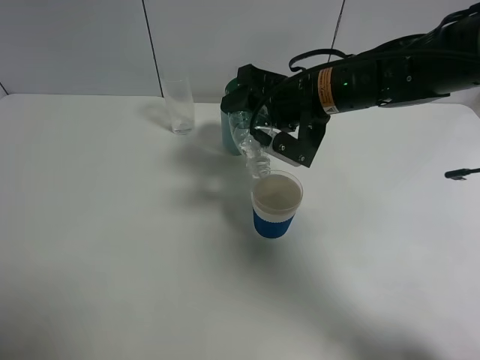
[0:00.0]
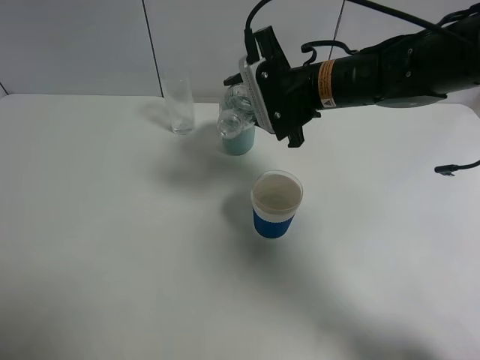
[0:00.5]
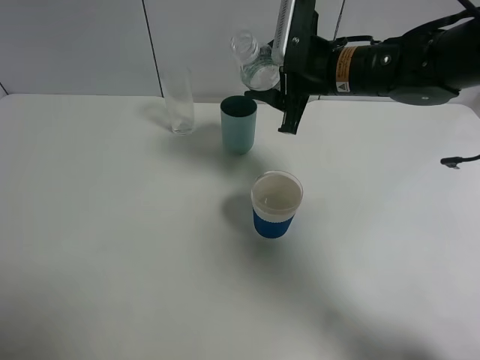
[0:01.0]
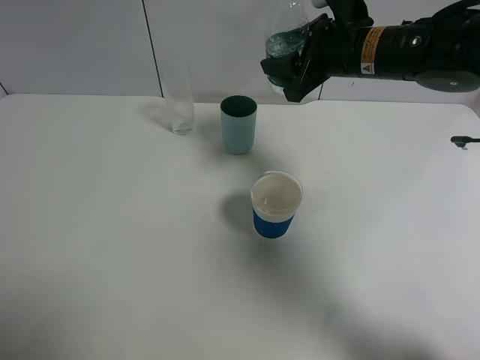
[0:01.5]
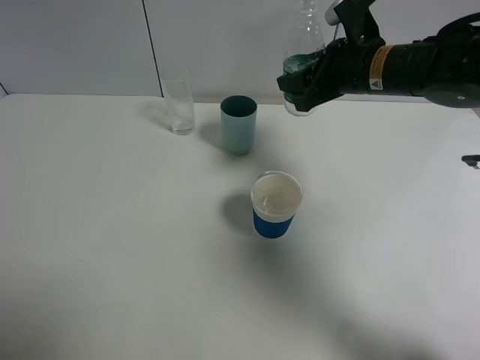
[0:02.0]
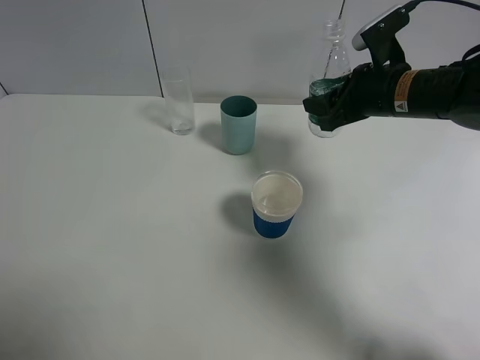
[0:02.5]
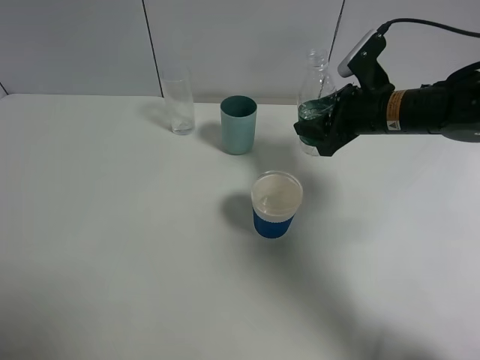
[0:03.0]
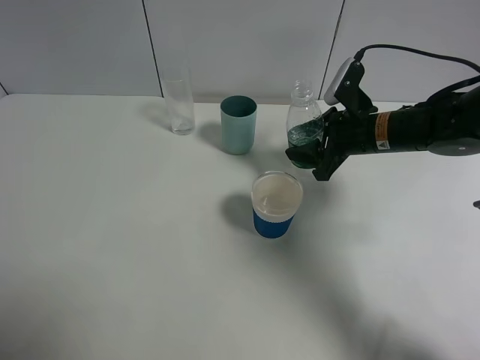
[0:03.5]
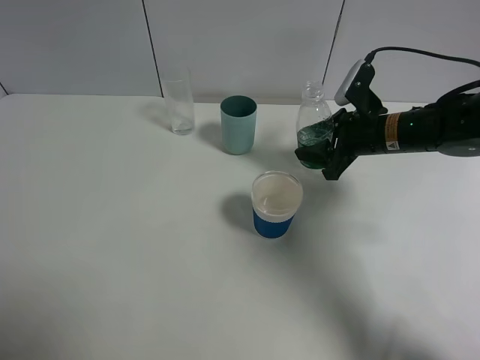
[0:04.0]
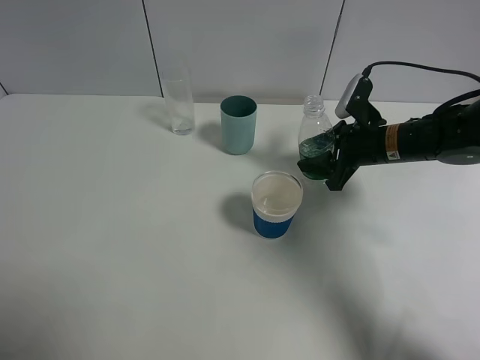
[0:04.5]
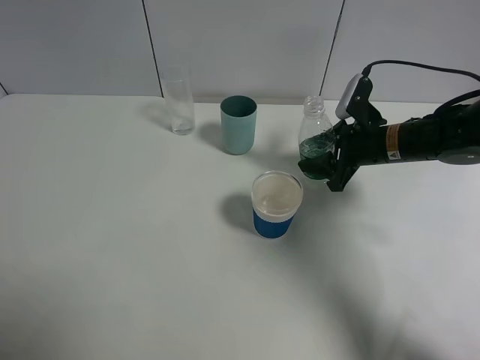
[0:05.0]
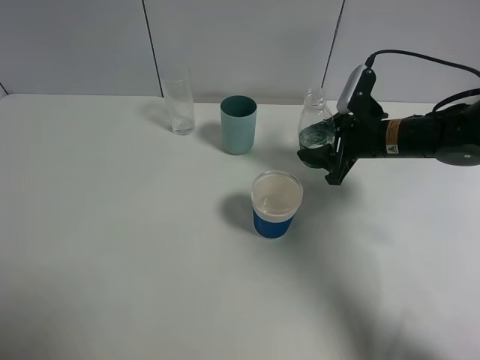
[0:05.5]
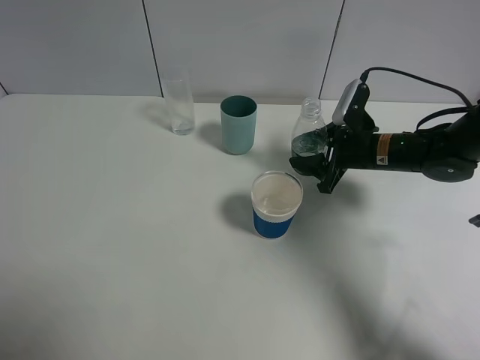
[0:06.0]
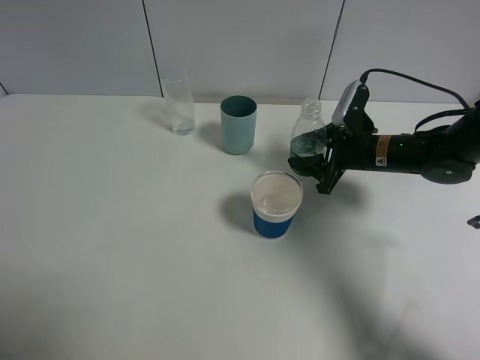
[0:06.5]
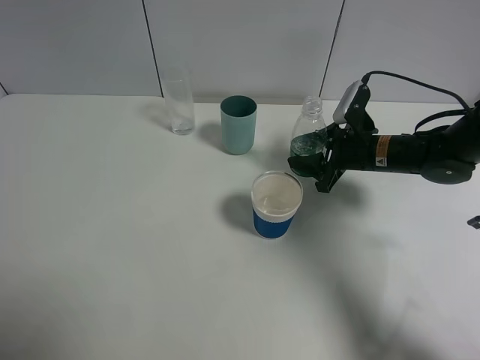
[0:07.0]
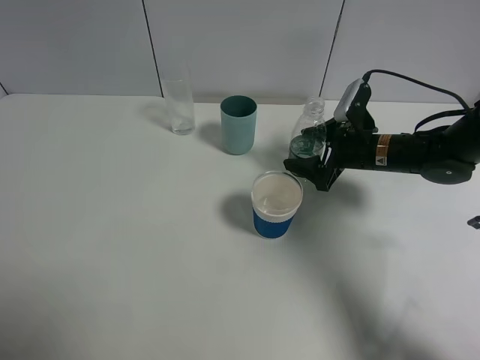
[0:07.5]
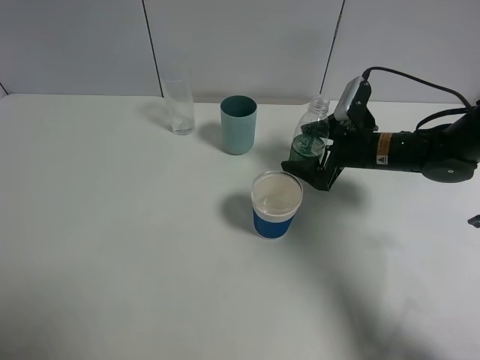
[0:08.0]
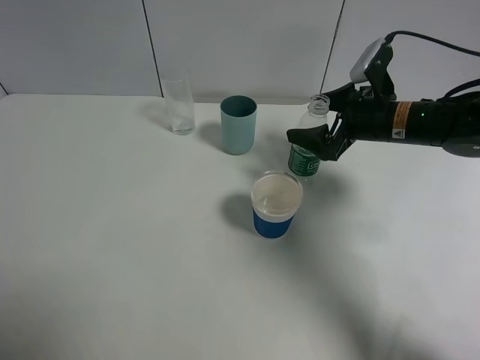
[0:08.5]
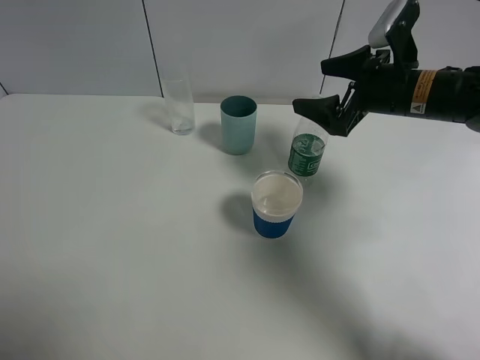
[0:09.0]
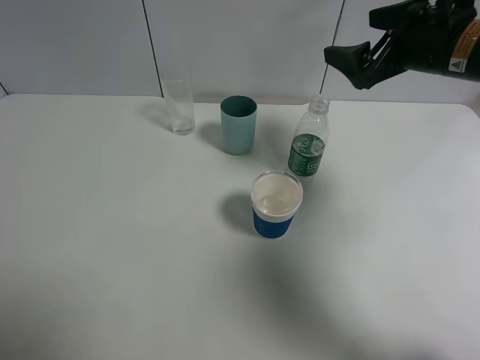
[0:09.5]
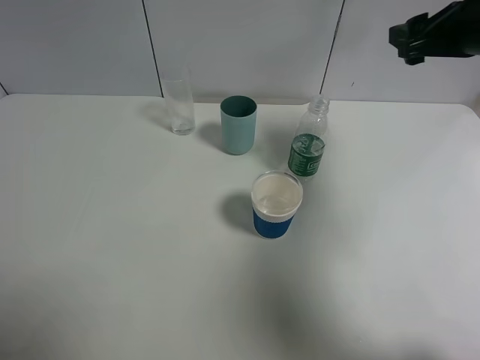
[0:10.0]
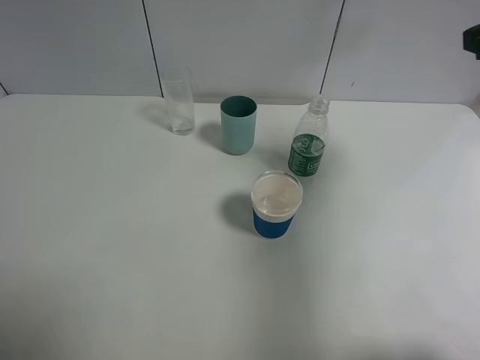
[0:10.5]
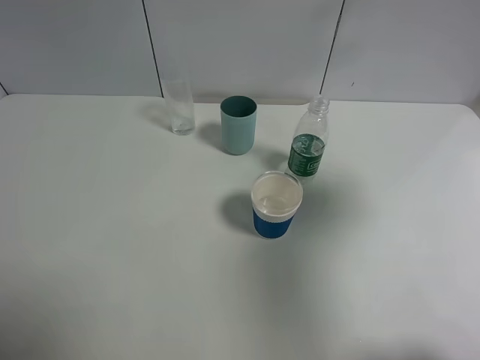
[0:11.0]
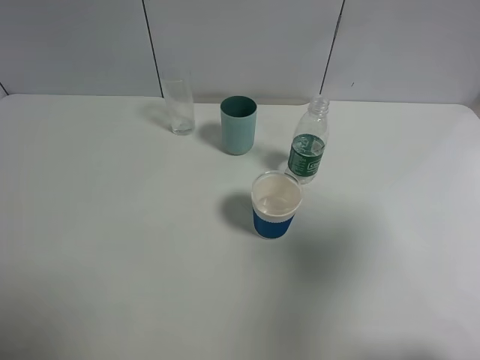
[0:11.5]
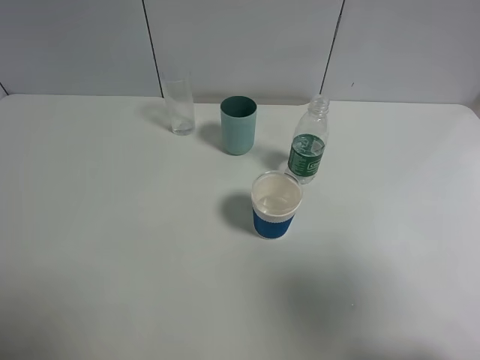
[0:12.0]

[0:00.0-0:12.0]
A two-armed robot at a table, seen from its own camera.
Task of the whole recording: use a gripper to hold the bottle of the drink and pour it into a random cup.
Step, 0:01.0 to 0:08.5: Place the mineral water bottle on the table with the right gripper.
0:00.0 to 0:02.0: The right gripper heads to the right, covering about 5 cm.
0:02.0 to 0:04.0: The right gripper heads downward, covering about 10 cm.
0:04.0 to 0:06.0: The grippers move only a little.
0:06.0 to 0:08.0: The right gripper opens its fingers.
0:08.0 to 0:10.0: The right gripper shifts approximately 20 cm upward.
0:10.0 to 0:12.0: The right gripper moves backward, approximately 30 cm, and opens its fingers.

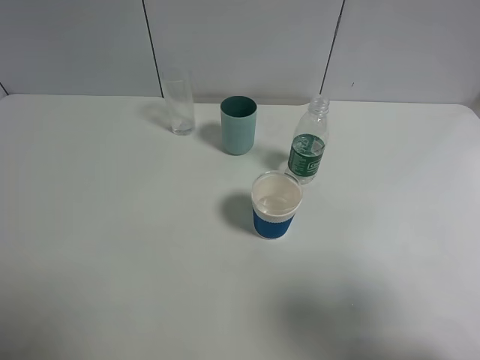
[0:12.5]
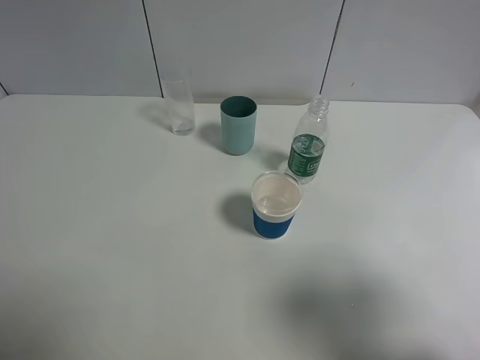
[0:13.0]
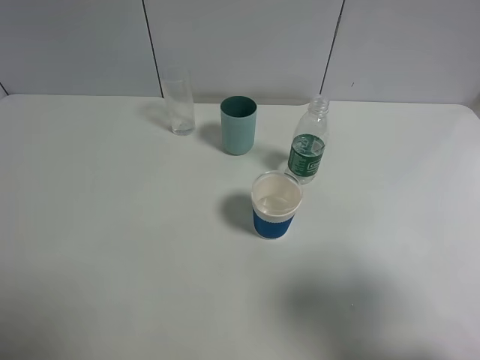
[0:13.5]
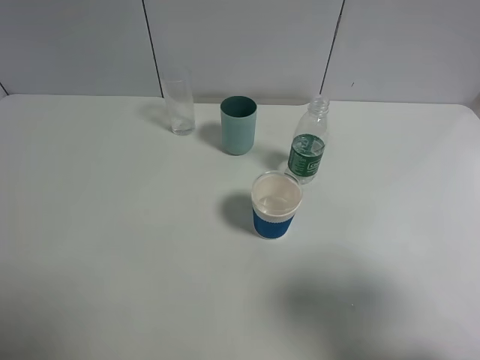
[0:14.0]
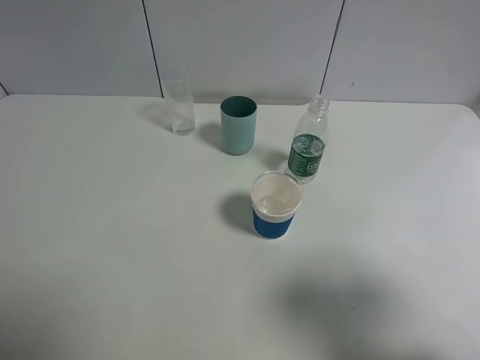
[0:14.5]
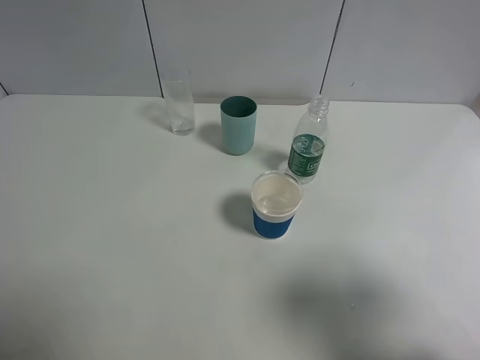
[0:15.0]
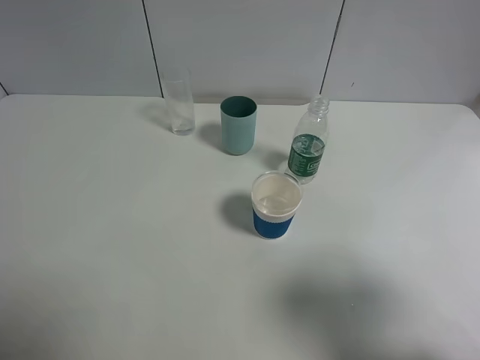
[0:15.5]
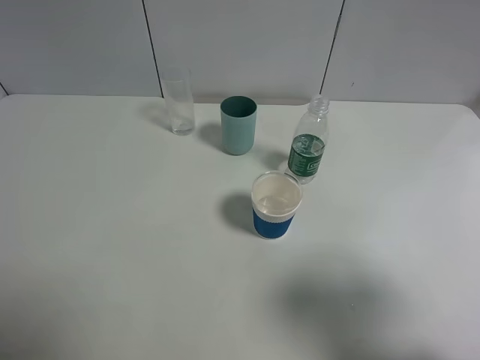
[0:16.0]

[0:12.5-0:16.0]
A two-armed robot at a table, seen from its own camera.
Task of the whole recording: use a gripper to hold the bottle of the drink and pour it into a random cup.
0:14.5 to 0:16.0: Neither gripper changes place.

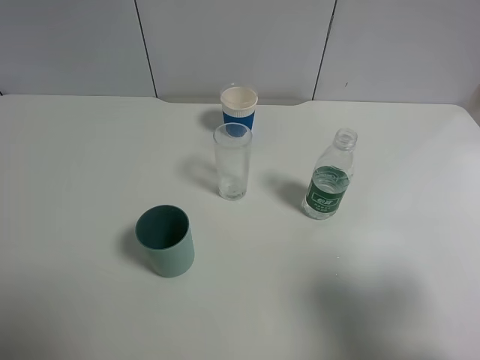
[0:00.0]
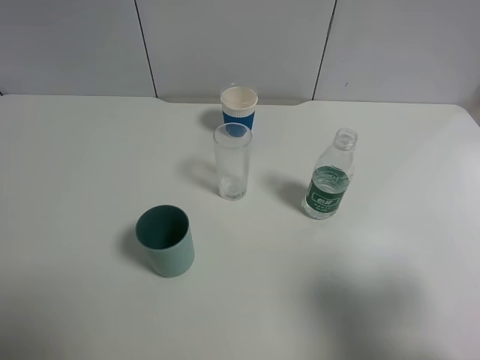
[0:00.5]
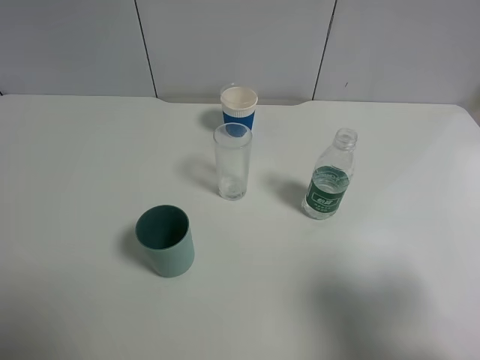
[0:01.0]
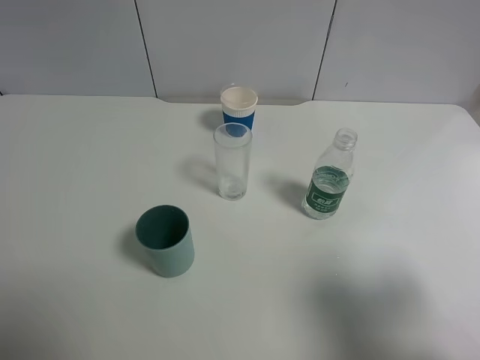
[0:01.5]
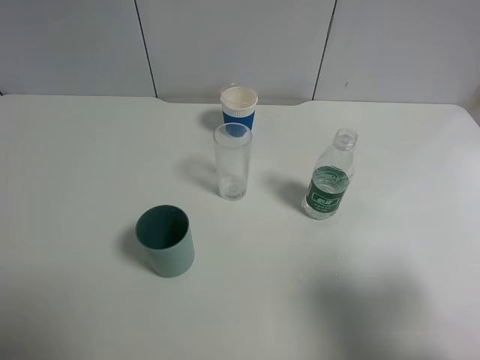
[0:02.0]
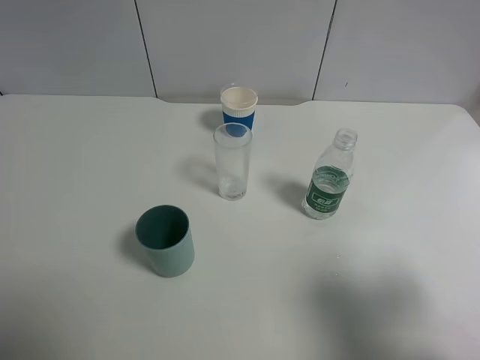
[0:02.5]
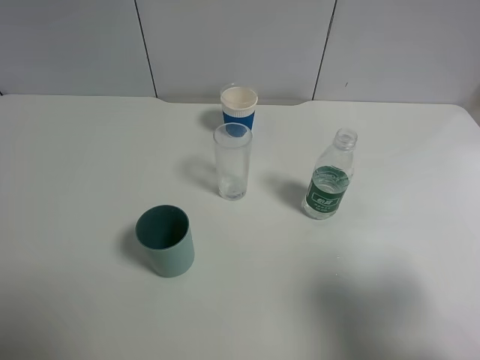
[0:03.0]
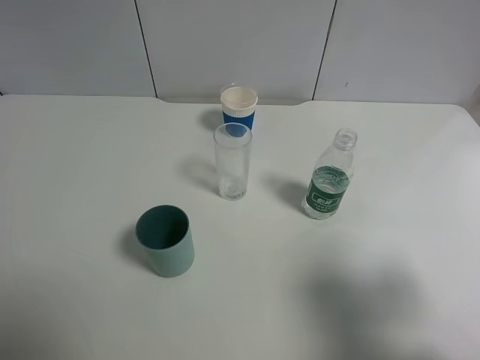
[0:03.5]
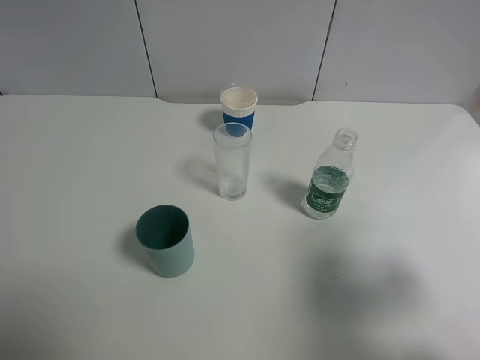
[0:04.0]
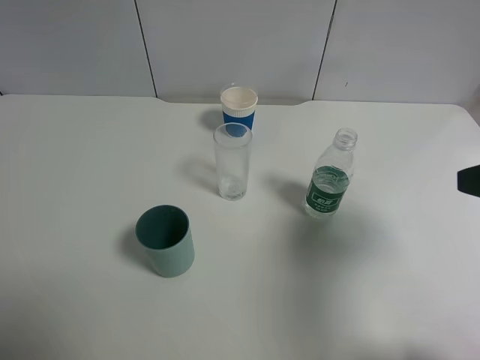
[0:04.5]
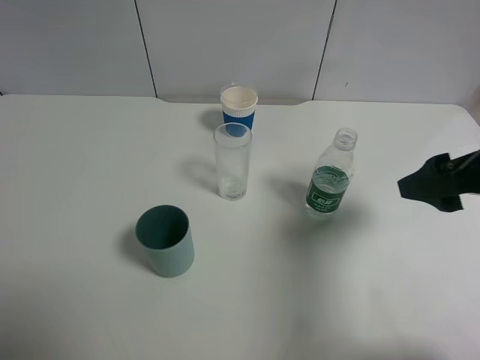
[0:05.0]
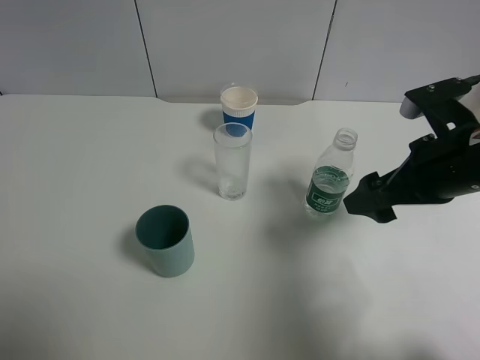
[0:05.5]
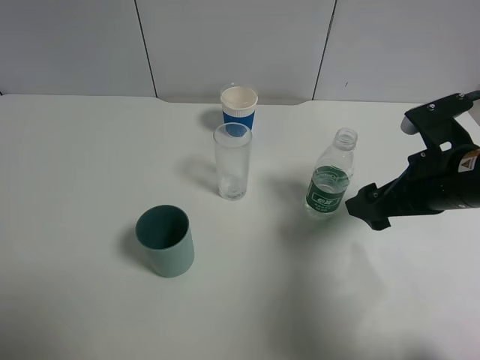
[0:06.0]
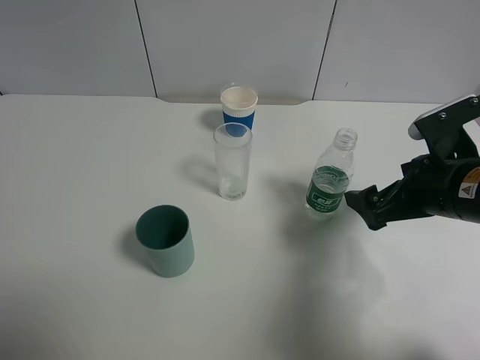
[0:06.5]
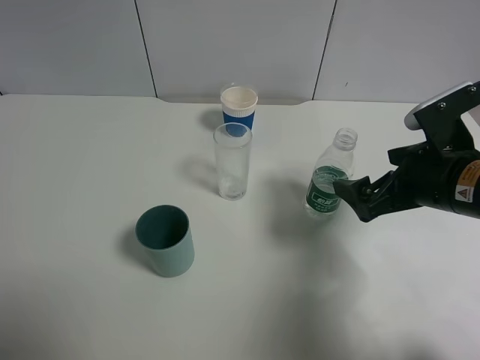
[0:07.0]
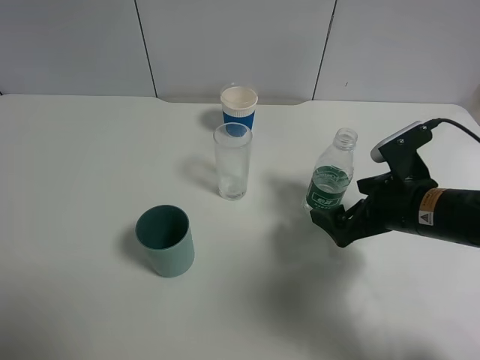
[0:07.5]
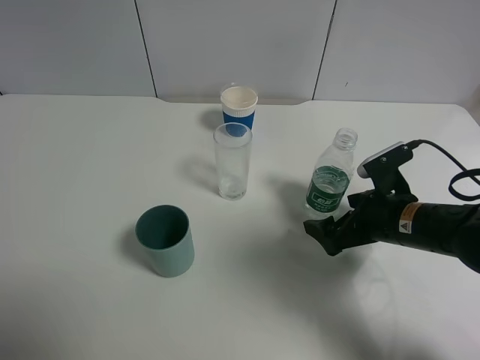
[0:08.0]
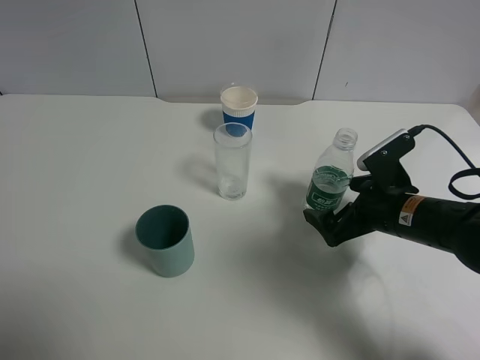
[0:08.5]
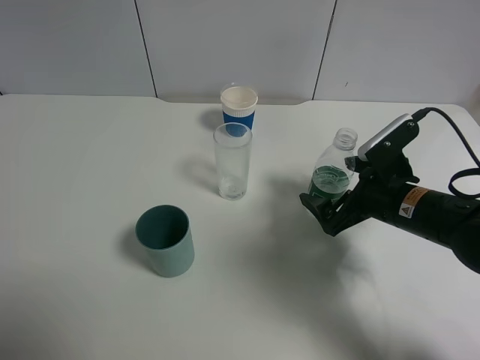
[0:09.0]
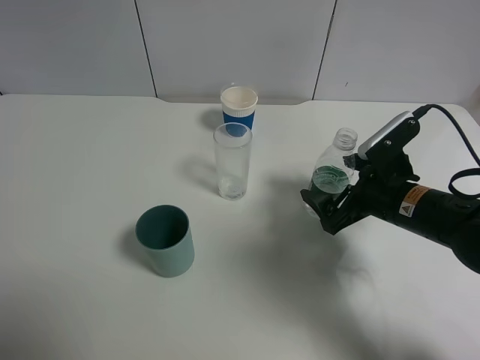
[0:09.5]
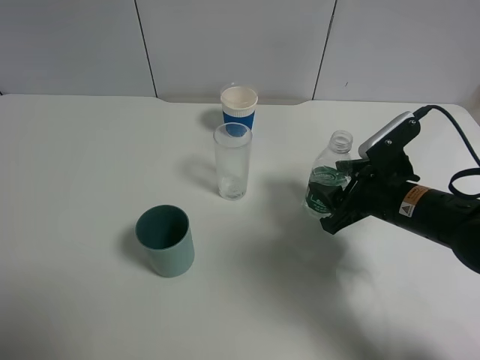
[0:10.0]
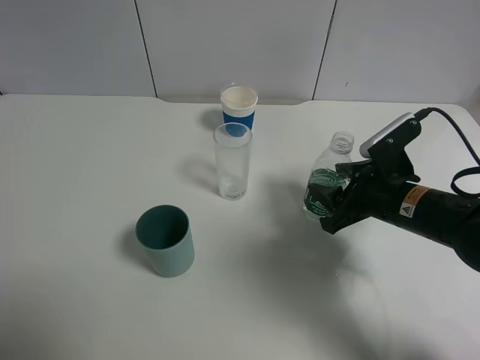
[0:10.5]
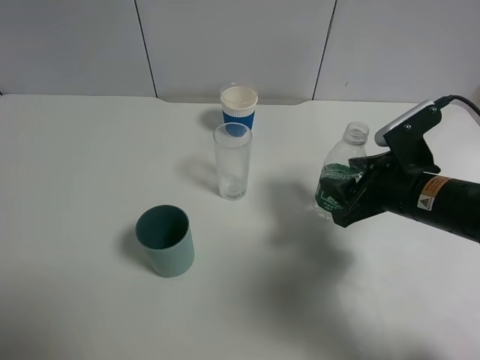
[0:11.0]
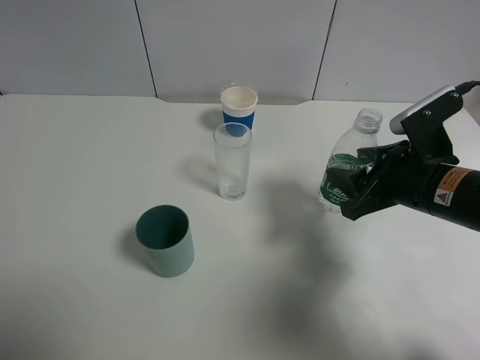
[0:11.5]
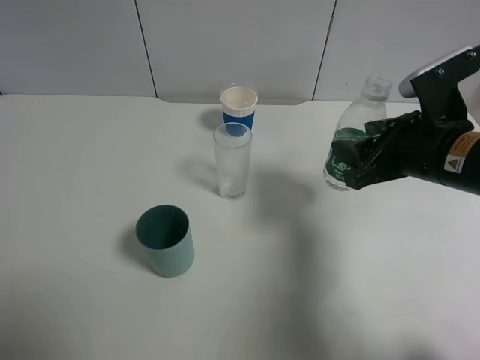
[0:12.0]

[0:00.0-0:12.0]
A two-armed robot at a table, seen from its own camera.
Task of the whole recording: use a gripper to hold the bottle of the drink and pour it into a random cup.
Step, 0:00.0 to 0:10.0: Grasp the mineral water bottle with the right gripper.
0:00.0 to 0:02.0: Neither gripper changes place.
0:02.0 to 0:04.0: The right gripper travels forward by some 5 cm.
0:04.0 to 0:06.0: The right gripper shifts about 20 cm forward, downward and to the left.
0:06.0 to 0:08.0: The right gripper moves downward, about 10 cm.
0:08.0 to 0:10.0: The right gripper closes up.
0:10.0 to 0:12.0: The right gripper goes some 10 cm upward.
